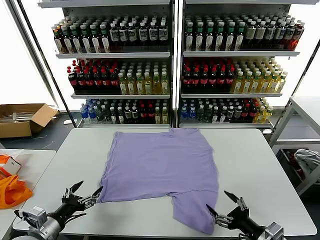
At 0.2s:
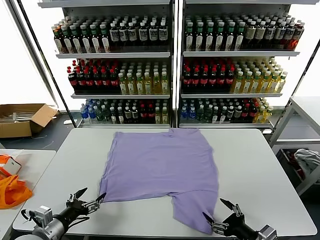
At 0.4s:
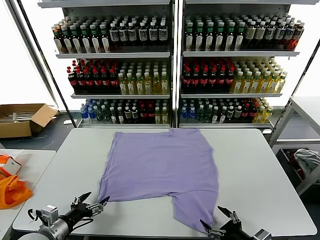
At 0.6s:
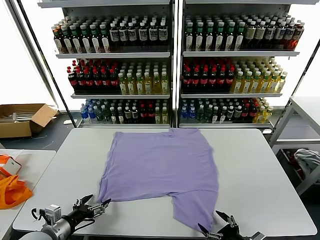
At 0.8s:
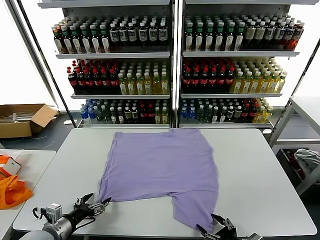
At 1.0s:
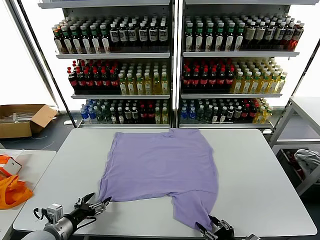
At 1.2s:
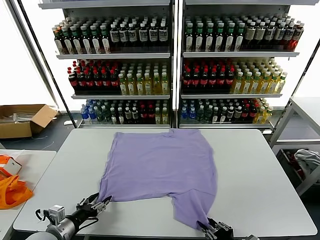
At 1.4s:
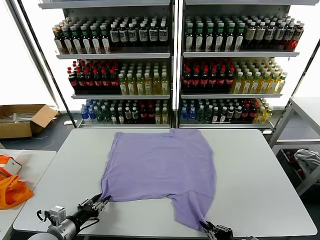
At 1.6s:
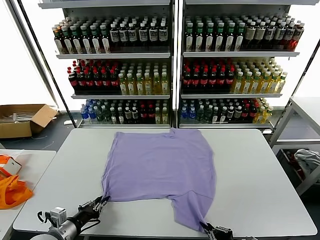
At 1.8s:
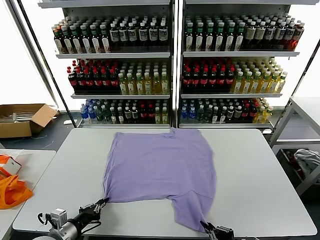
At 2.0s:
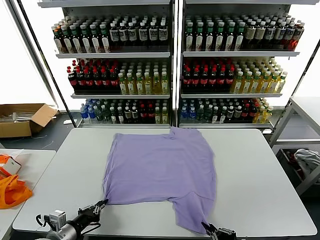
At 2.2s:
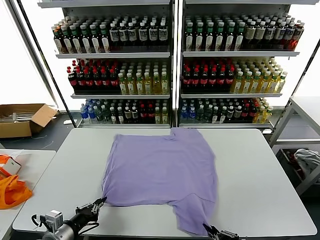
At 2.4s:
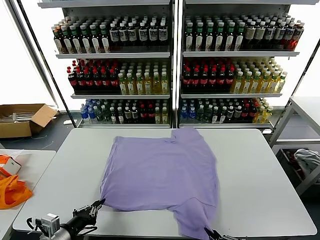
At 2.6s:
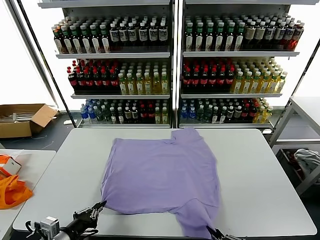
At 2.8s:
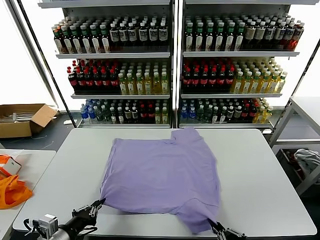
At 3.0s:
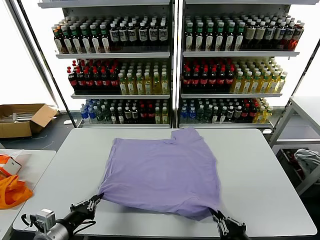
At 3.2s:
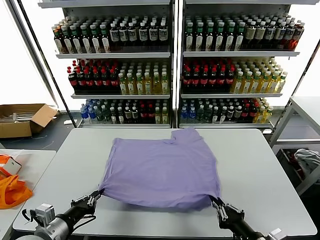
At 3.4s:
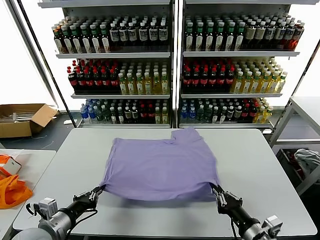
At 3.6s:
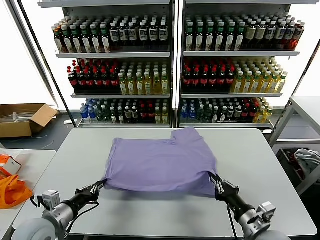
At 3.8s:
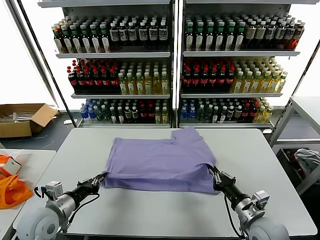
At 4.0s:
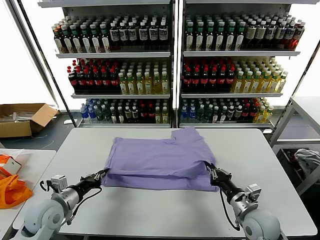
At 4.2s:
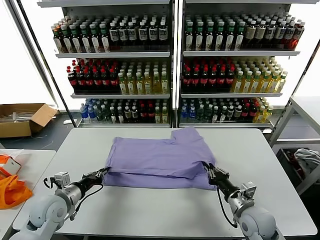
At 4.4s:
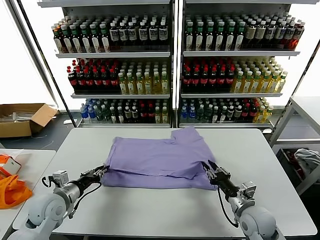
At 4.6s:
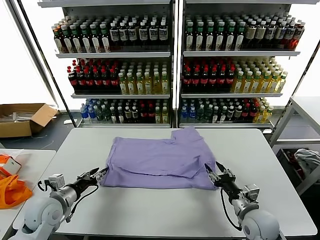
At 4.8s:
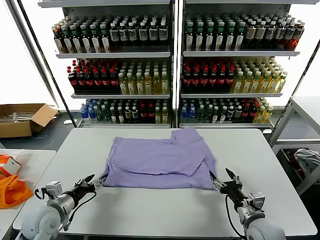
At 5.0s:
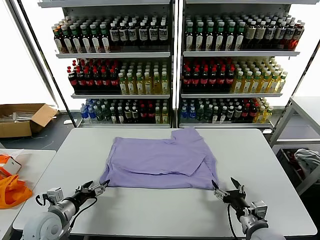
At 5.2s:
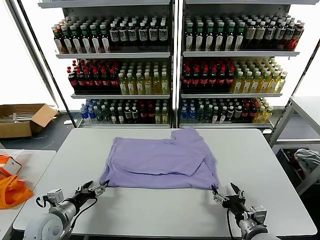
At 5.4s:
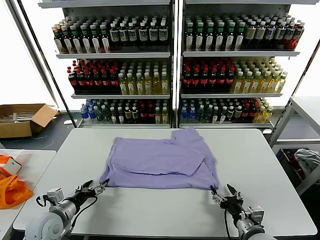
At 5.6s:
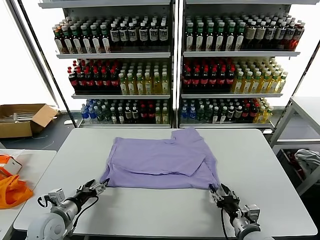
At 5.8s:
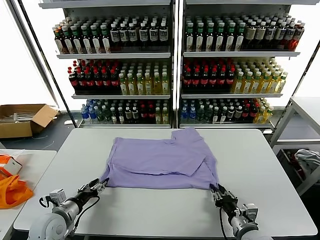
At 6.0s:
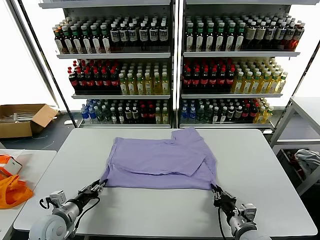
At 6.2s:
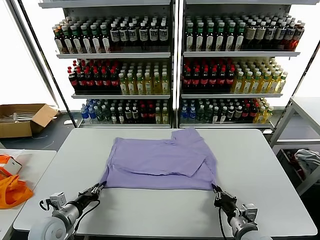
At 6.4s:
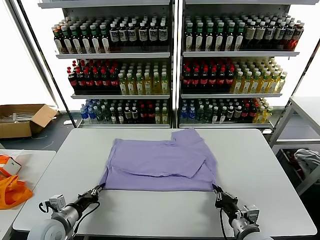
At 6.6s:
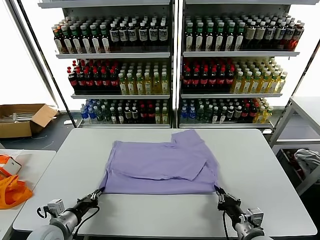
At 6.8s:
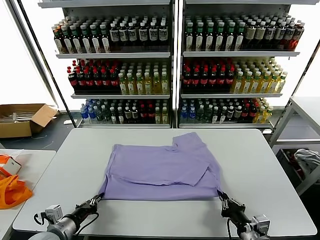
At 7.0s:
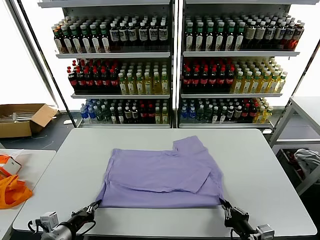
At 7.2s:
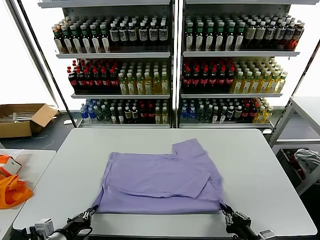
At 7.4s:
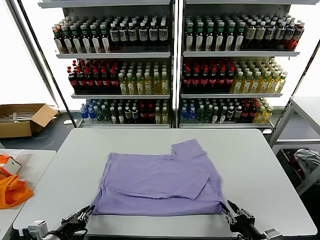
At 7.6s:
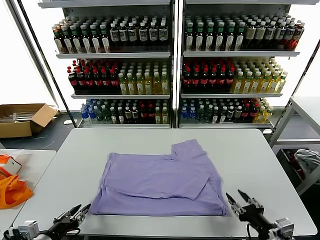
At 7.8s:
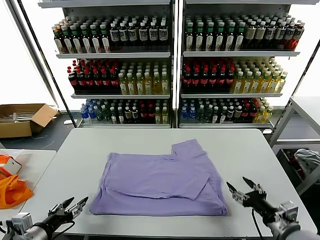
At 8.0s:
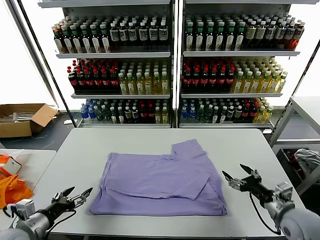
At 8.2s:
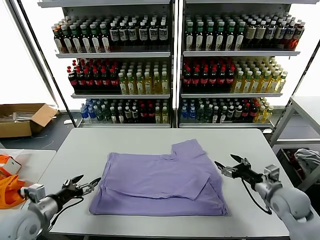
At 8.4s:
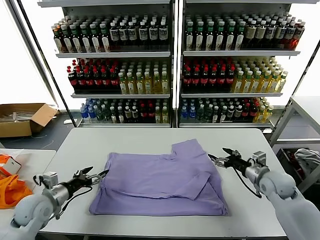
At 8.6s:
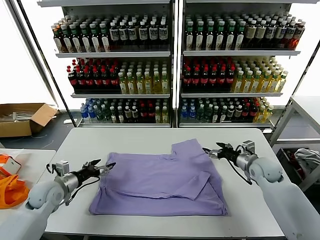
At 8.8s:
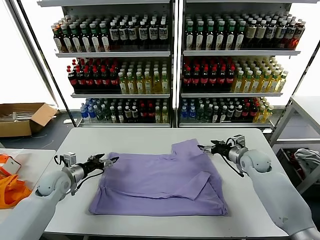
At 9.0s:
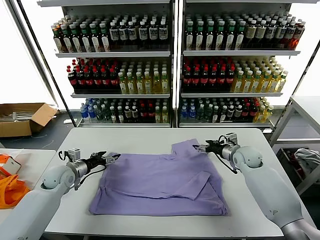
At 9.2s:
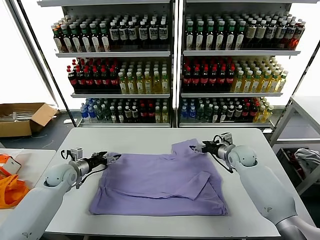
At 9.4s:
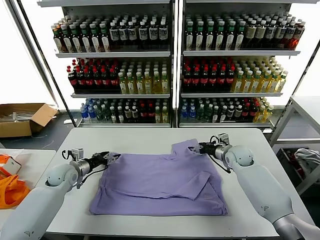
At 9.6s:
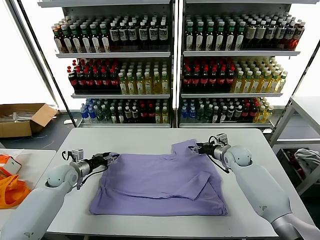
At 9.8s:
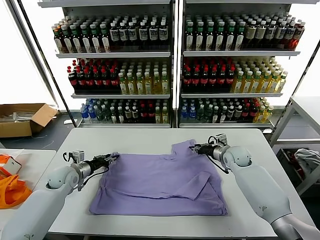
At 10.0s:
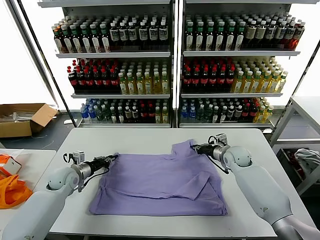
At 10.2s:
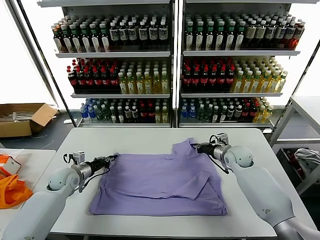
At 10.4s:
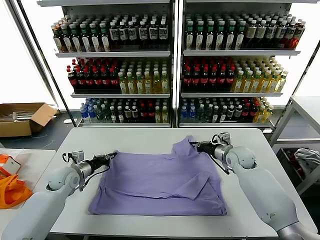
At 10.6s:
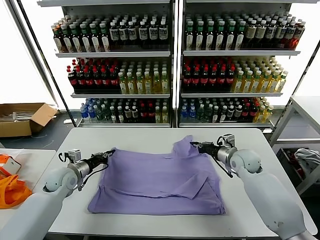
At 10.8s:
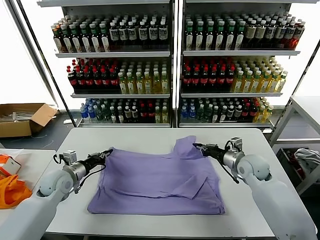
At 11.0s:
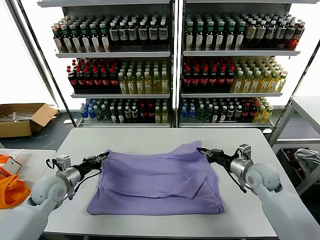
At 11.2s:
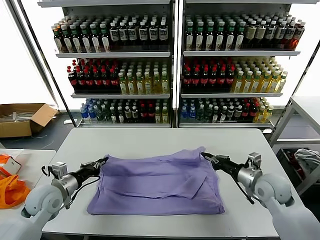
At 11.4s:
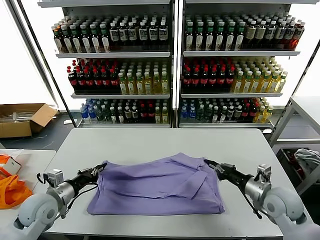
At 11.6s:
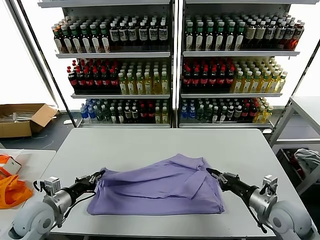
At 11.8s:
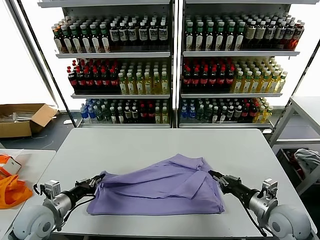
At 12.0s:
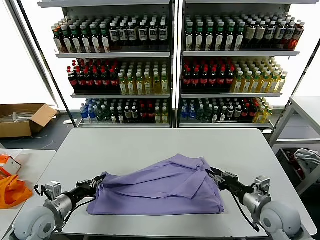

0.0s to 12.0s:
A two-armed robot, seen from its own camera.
Task of the whole recording: fold and organize the clothes.
Step, 0.0s to 1.6s: use both grippers simultaneously to clamp the lower edge of the clothing fabric.
Step, 1.8s to 4.4s: use both grippers to drag the lower edge of the fabric forward and fold it over the upper edge.
Step, 4.6s to 7.4s: Drag the clothes downward with both gripper.
Step, 7.6s to 10.0s: use both grippers simultaneously to clamp the upper edge of the clothing fabric.
1.6s to 3.0s: The left gripper goes some 5 cm upward.
3.0s to 4.4s: The grippers both shift forward by some 15 cm. The right gripper opens up.
4.4s to 6.0s: The left gripper moves approximately 5 cm, and opens, then closes once more. Meanwhile the right gripper travels backward by approximately 5 cm, and closes its fingers.
6.0s to 7.6s: The left gripper is displaced backward and upward by roughly 15 cm, and closes, then opens again, while the right gripper shifts roughly 10 cm to the right, upward and backward, and opens.
7.6s to 9.0s: Both grippers move forward, some 30 cm. The left gripper opens its fingers.
9.0s to 10.4s: The left gripper closes. The right gripper closes.
10.4s to 12.0s: The grippers both shift backward by approximately 20 cm. The right gripper opens up.

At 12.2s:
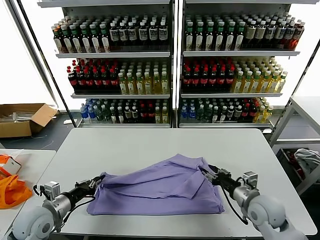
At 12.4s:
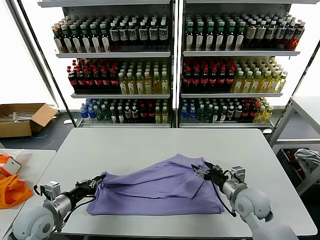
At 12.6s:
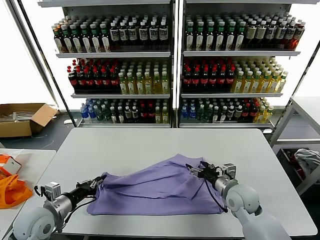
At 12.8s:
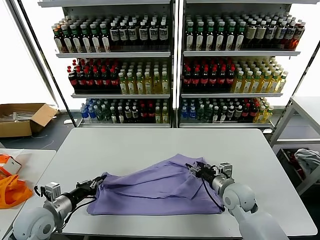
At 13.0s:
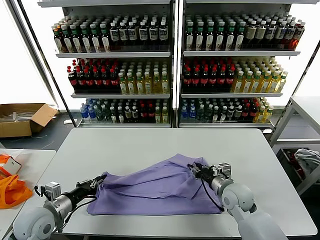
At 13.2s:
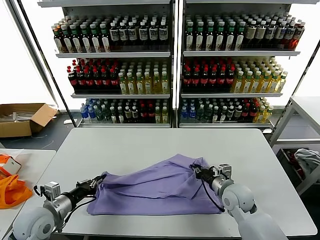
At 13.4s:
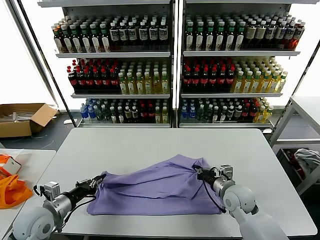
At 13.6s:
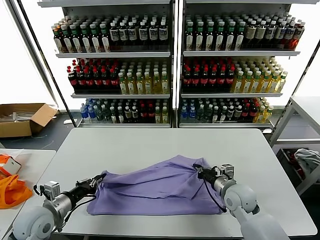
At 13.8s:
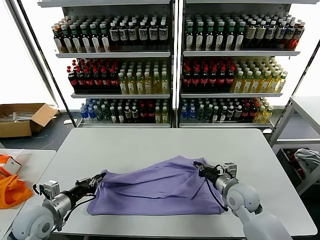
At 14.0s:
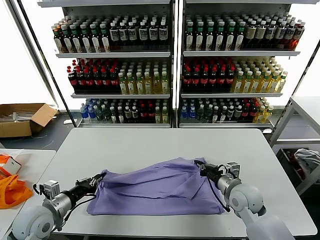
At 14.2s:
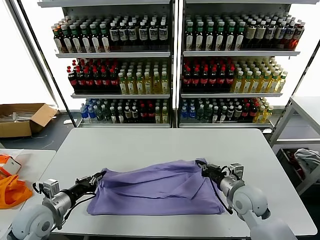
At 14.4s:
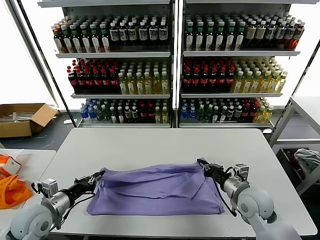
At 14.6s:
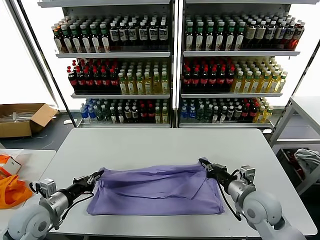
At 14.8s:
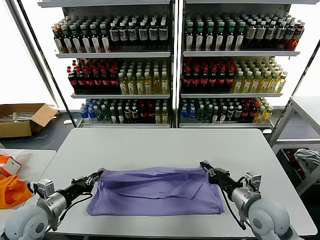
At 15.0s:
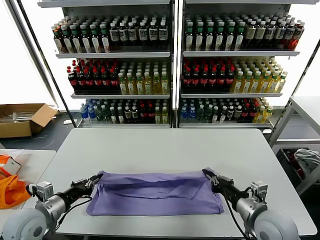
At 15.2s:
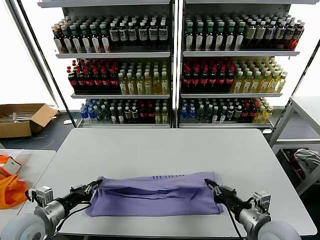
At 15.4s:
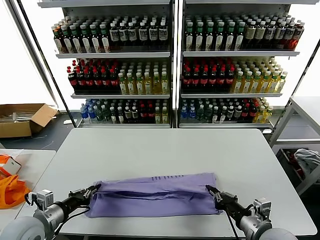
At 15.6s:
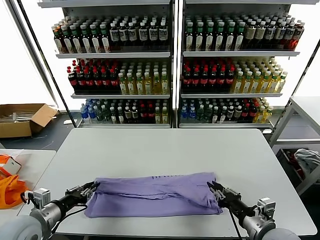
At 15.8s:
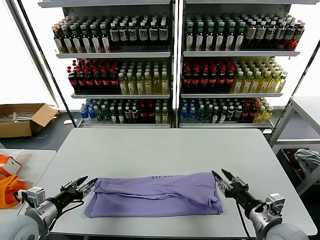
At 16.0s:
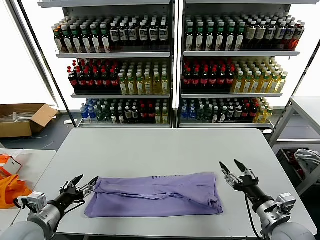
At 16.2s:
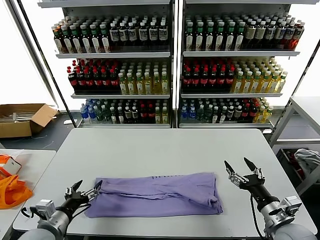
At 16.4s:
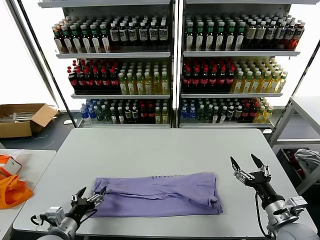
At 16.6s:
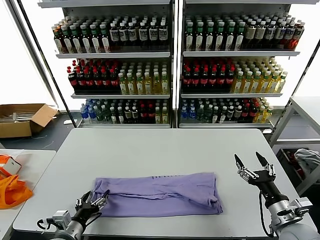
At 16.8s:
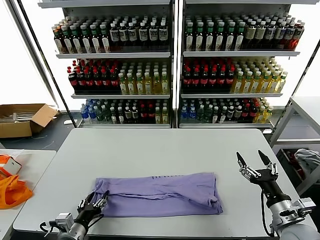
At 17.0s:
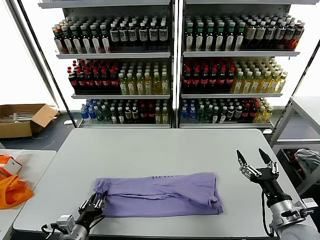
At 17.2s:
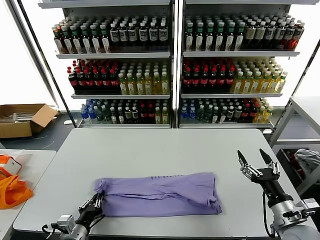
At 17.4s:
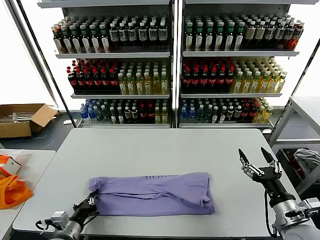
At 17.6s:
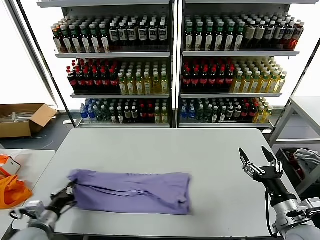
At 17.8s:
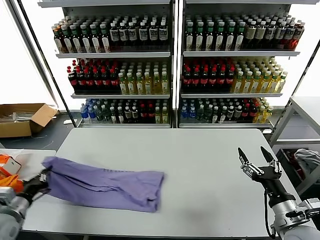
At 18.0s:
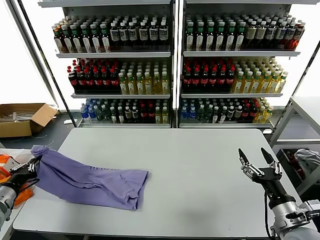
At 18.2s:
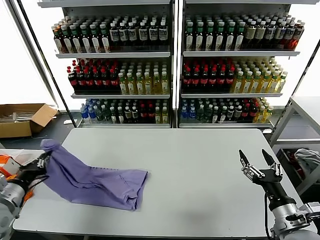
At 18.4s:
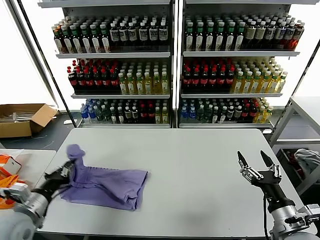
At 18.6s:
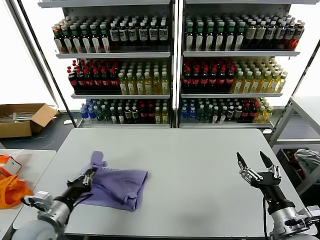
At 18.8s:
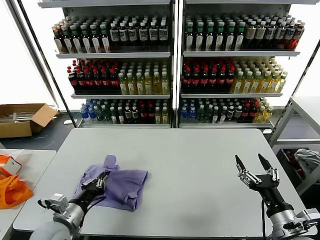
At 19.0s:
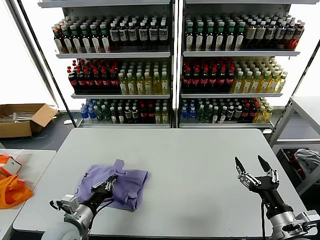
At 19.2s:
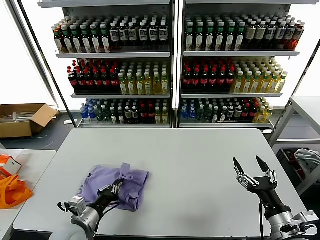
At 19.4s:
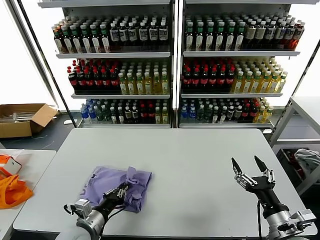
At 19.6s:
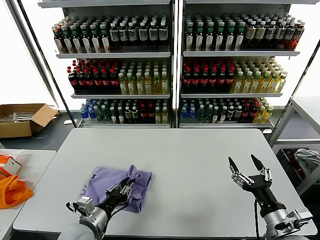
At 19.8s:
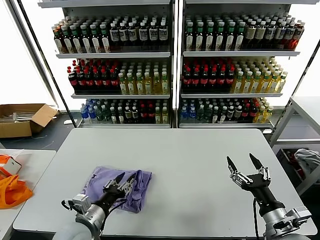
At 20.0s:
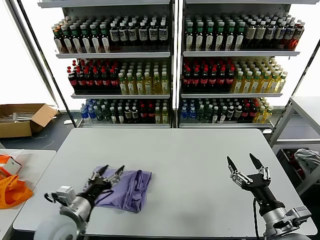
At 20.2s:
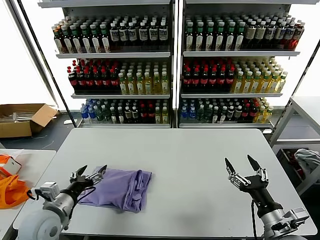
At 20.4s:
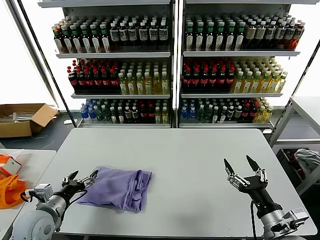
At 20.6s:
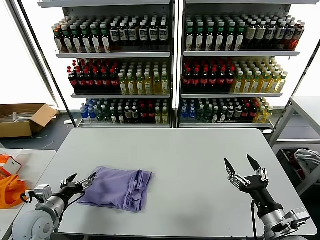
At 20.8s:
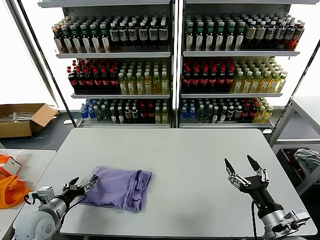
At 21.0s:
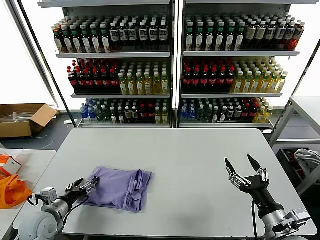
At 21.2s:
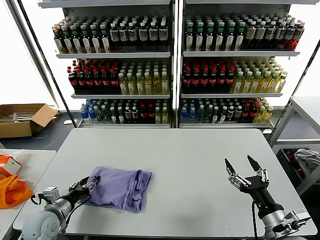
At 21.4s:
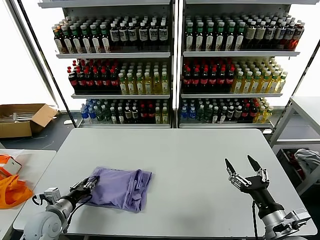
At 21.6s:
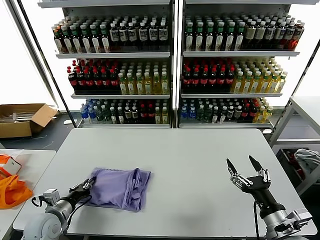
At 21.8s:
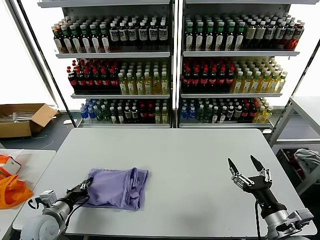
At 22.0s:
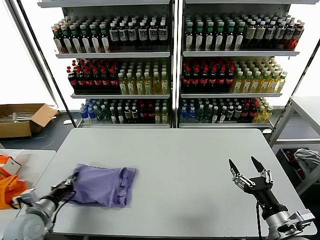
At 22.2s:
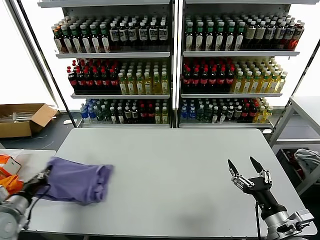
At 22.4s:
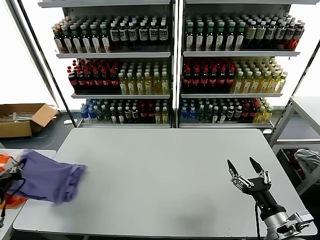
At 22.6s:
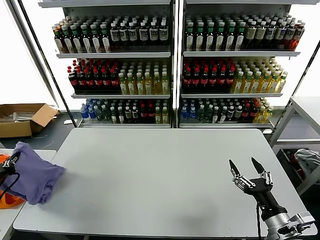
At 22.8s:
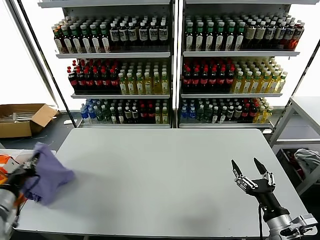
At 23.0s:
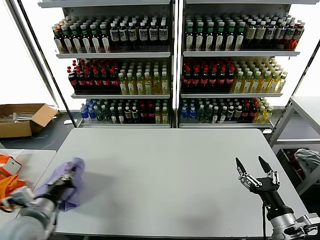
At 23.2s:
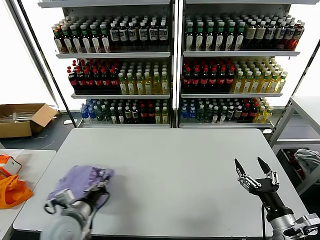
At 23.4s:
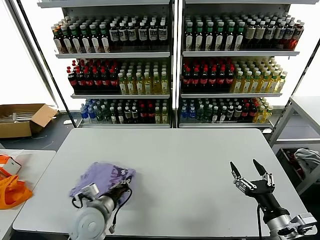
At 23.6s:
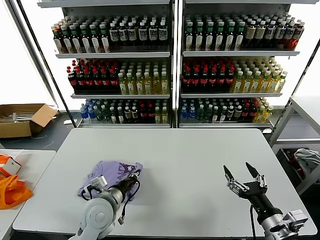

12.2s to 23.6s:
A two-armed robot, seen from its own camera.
Task of the whole recording: fold and organize the clothes.
Step, 12.2s to 15.6s: use both grippers to drag the upper edge of the fabric backward and fold it over the lower edge.
Step, 15.8s to 17.2s: use the left gripper to clamp the left edge of the fabric.
Step, 17.4s to 19.6s: use the left gripper to drag the left edge of the fabric to the left and folds it over the right edge.
Step, 19.8s to 23.6s: Flip the folded clothes over with left gripper.
12.2s to 13.6s: The right gripper shifts by approximately 5 cm, and closes its fingers.
13.6s to 15.0s: The right gripper moves backward and upward, approximately 15 cm.
15.0s to 16.4s: The right gripper moves to the right, roughly 5 cm, and opens up. The left gripper goes some 5 cm downward, and opens its fingers.
16.4s to 17.8s: The left gripper goes approximately 15 cm to the left, and closes.
17.8s to 19.4s: The left gripper is displaced to the right by approximately 20 cm.
19.4s to 20.8s: The left gripper goes approximately 10 cm to the left, and opens its fingers.
20.8s to 22.2s: The left gripper goes some 5 cm to the left, and closes up.
22.2s to 23.6s: The left gripper goes roughly 25 cm to the right.
